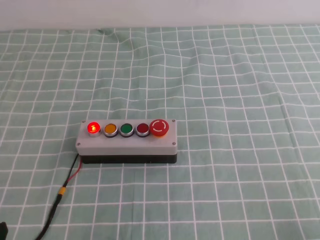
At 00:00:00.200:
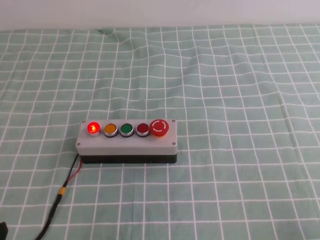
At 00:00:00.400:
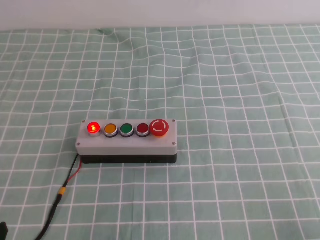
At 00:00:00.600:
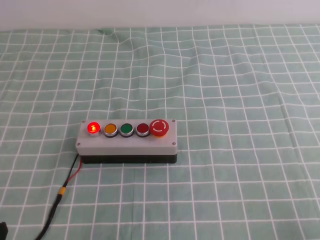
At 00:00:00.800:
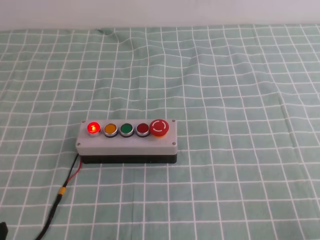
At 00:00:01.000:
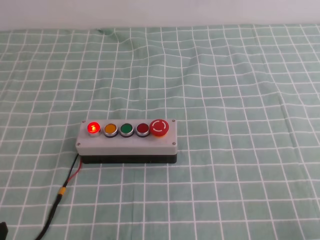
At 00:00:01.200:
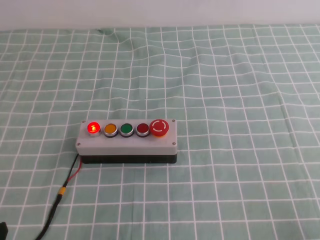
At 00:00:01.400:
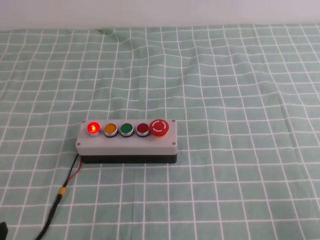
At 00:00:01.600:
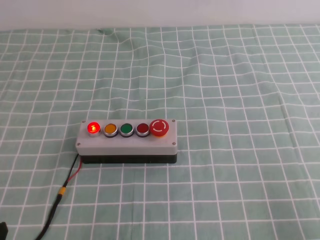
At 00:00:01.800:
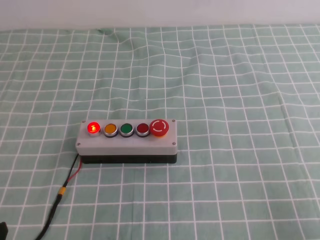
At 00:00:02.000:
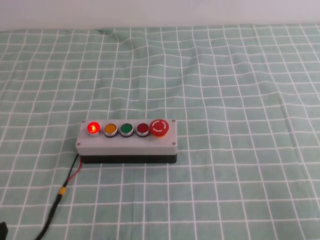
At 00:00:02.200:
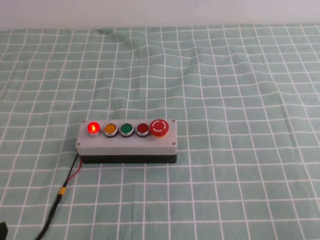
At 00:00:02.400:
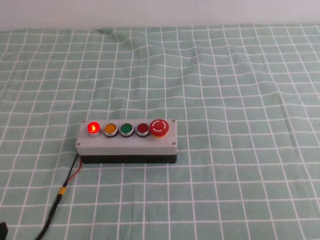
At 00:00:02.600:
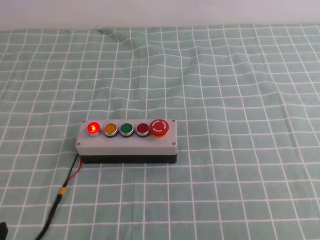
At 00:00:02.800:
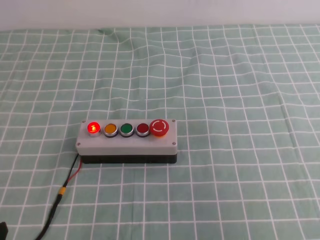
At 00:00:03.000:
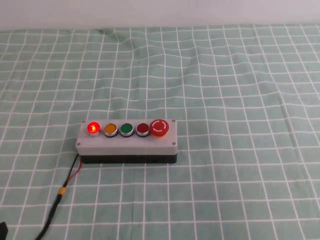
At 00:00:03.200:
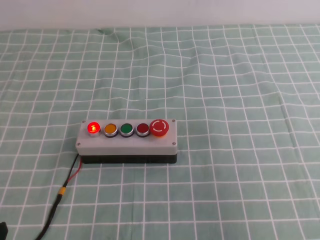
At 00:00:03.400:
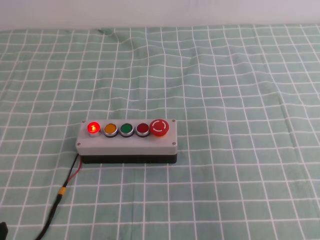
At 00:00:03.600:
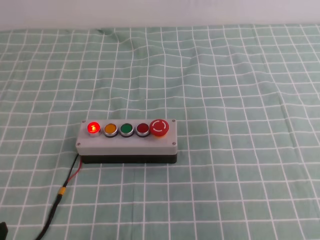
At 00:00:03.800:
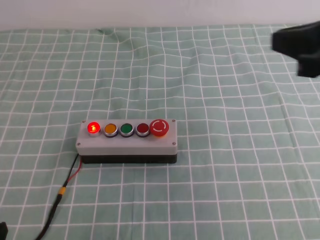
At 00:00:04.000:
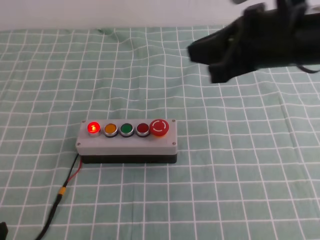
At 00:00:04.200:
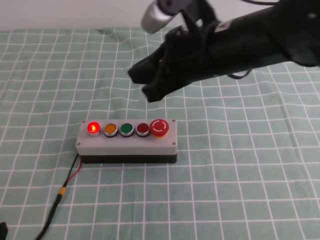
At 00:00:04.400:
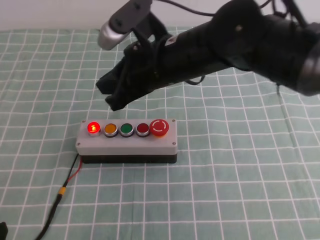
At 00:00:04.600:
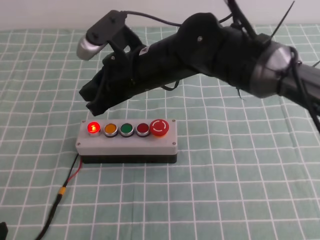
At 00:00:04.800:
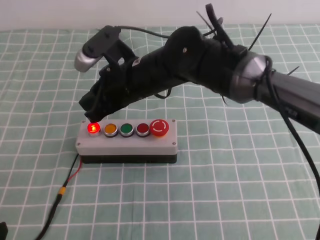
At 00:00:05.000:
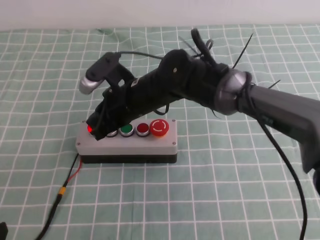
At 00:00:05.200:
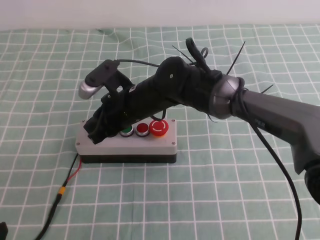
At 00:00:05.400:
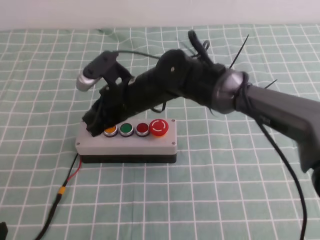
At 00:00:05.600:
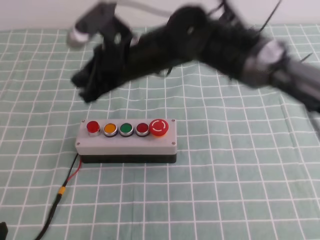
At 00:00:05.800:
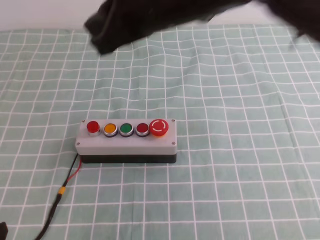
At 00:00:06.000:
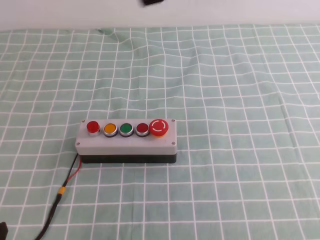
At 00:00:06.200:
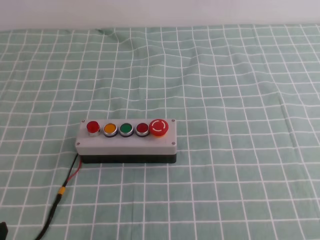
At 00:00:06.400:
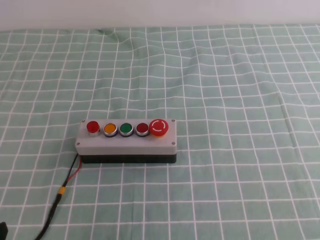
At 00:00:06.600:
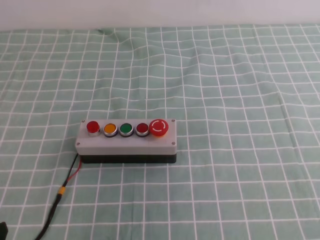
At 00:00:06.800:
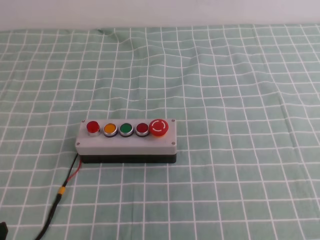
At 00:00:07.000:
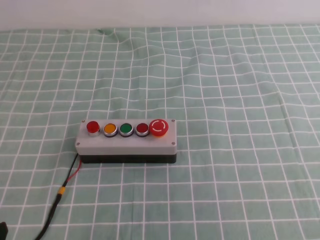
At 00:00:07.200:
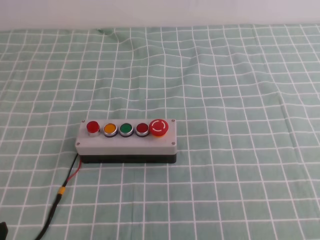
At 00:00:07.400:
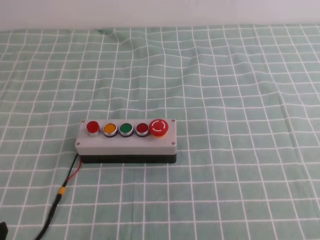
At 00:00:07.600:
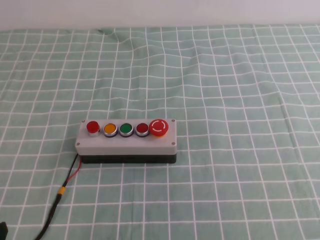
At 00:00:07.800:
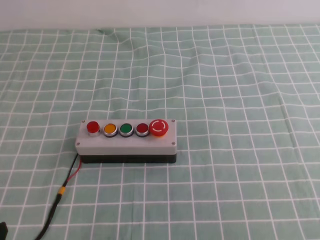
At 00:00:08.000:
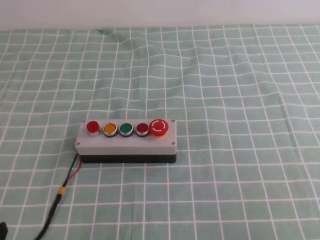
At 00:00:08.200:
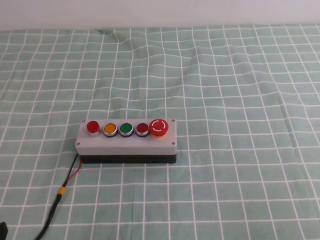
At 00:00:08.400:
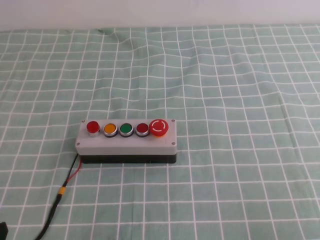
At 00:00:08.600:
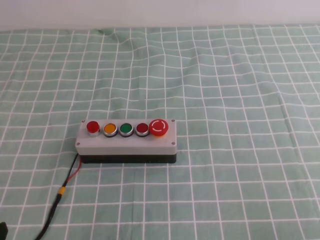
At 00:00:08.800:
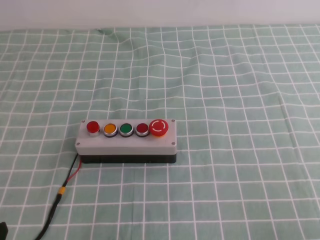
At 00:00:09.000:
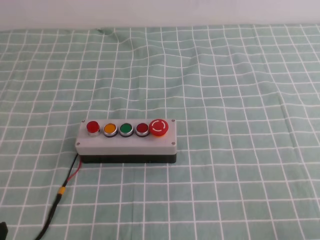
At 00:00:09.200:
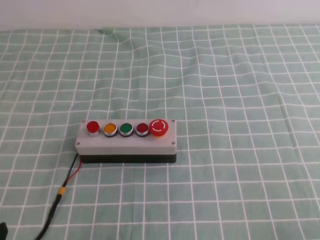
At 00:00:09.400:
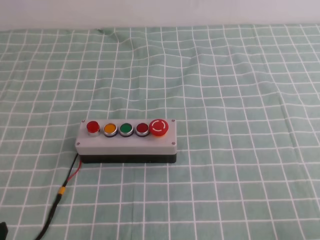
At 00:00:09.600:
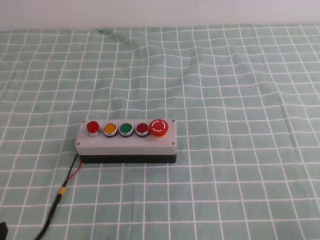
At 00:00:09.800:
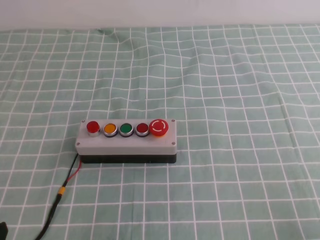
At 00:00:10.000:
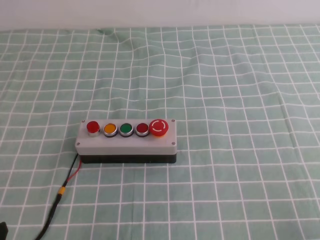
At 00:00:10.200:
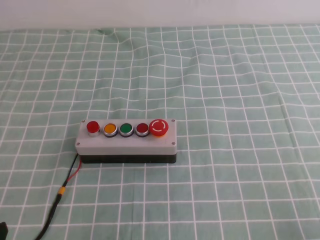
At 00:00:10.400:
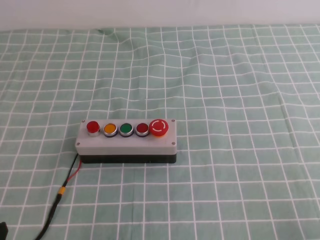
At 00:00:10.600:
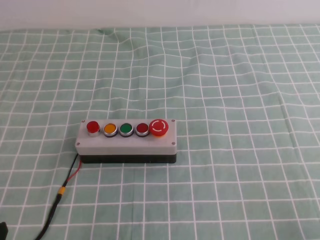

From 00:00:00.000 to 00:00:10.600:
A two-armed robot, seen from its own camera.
Task of the whole recording: press the button switch on the cyan tablecloth with the right gripper to turn off the button.
Step, from 00:00:00.000 to 00:00:10.600: Press the button to turn off.
From 00:00:01.600 to 00:00:03.000: The right gripper goes about 20 cm upward.
From 00:00:03.000 to 00:00:04.600: The right gripper heads to the left and forward, covering some 40 cm.
From 00:00:04.600 to 00:00:06.000: The right gripper travels upward, to the right and backward by roughly 20 cm.
From 00:00:06.000 to 00:00:07.600: The right gripper is displaced to the right, backward and downward by approximately 35 cm.

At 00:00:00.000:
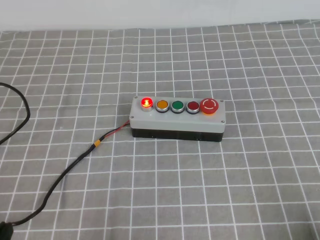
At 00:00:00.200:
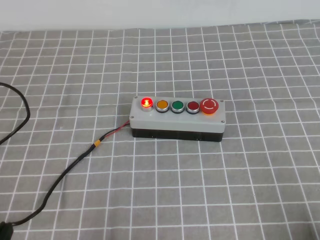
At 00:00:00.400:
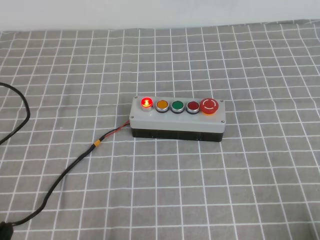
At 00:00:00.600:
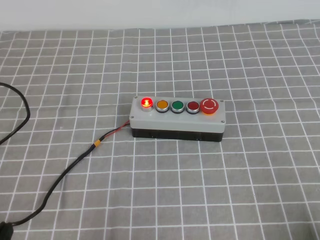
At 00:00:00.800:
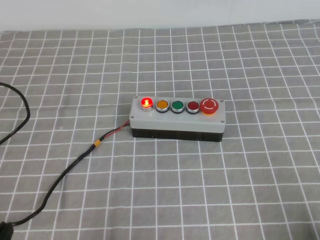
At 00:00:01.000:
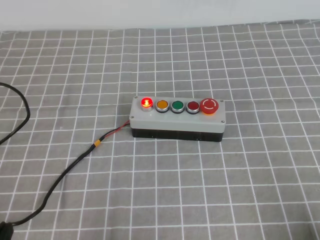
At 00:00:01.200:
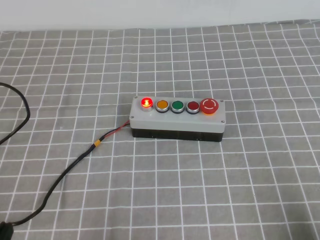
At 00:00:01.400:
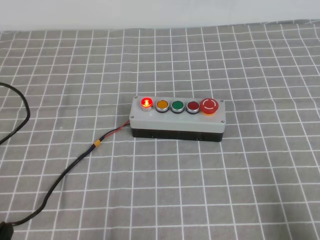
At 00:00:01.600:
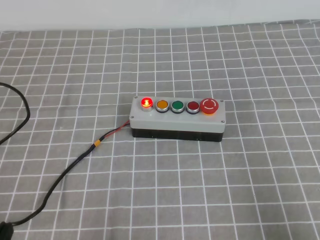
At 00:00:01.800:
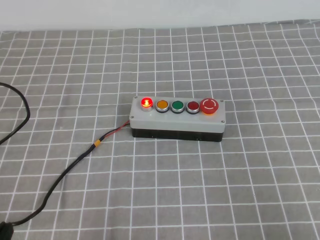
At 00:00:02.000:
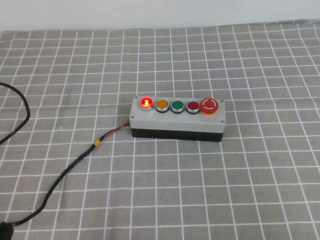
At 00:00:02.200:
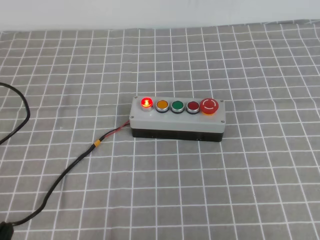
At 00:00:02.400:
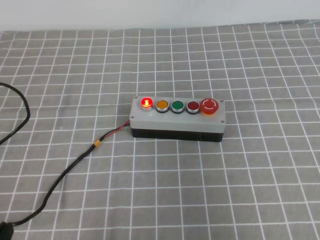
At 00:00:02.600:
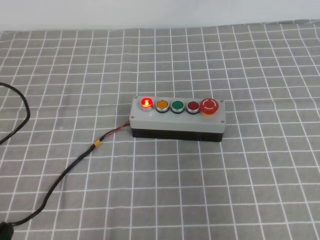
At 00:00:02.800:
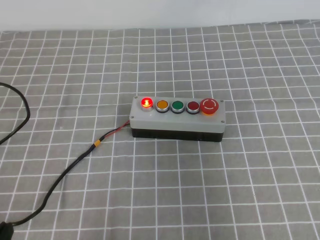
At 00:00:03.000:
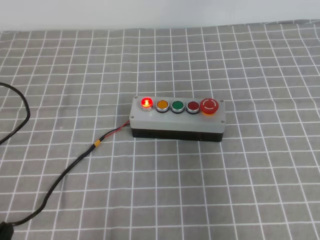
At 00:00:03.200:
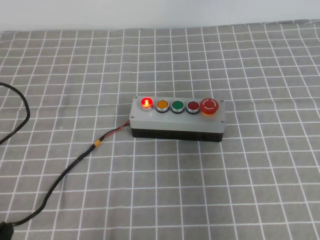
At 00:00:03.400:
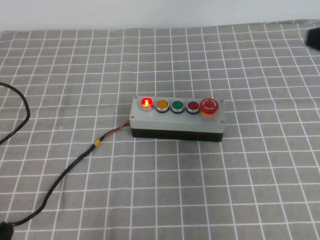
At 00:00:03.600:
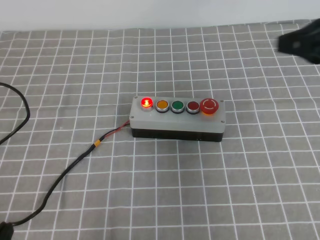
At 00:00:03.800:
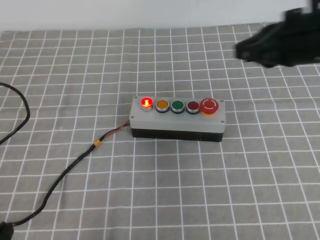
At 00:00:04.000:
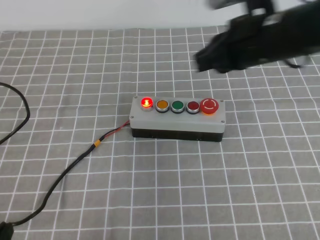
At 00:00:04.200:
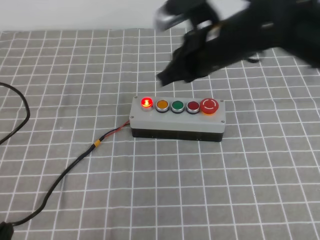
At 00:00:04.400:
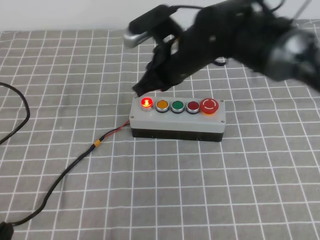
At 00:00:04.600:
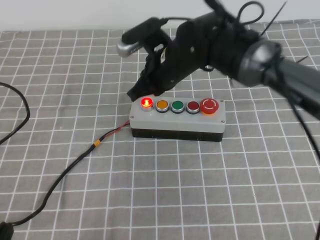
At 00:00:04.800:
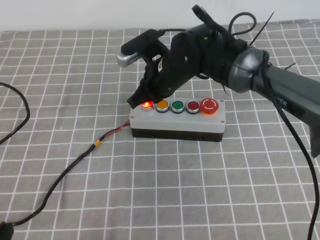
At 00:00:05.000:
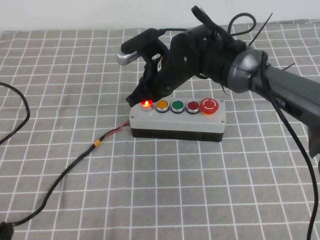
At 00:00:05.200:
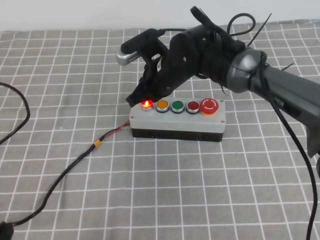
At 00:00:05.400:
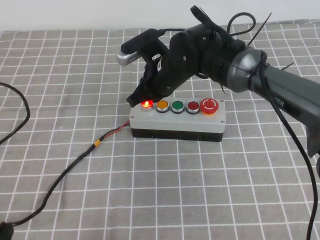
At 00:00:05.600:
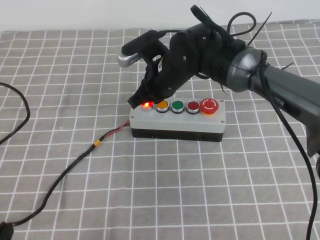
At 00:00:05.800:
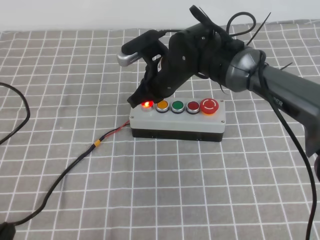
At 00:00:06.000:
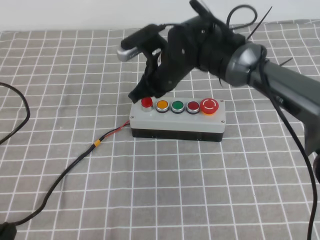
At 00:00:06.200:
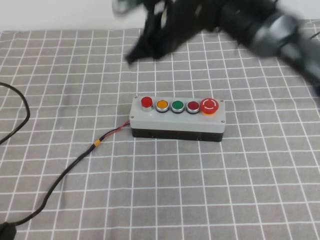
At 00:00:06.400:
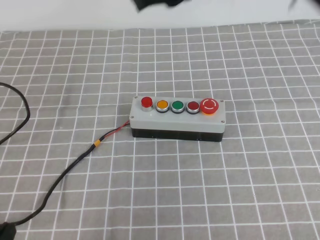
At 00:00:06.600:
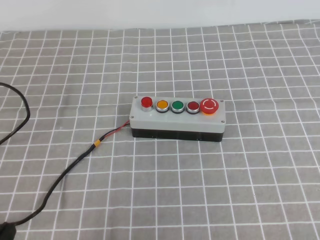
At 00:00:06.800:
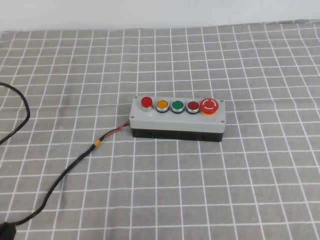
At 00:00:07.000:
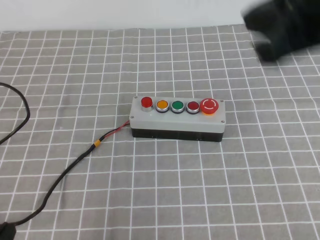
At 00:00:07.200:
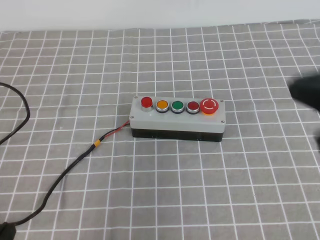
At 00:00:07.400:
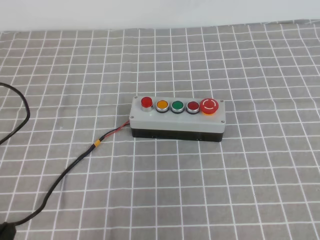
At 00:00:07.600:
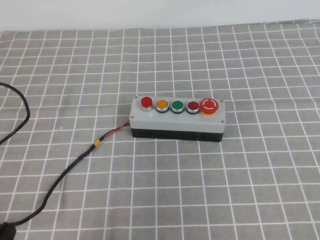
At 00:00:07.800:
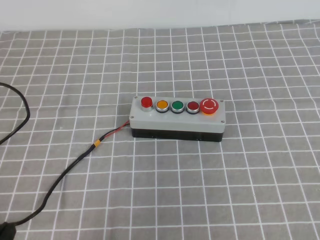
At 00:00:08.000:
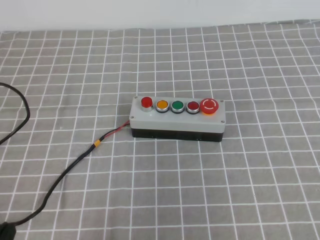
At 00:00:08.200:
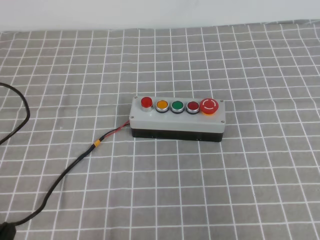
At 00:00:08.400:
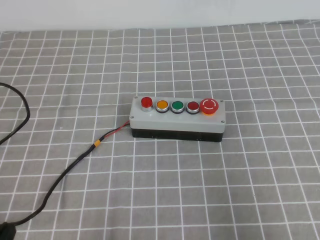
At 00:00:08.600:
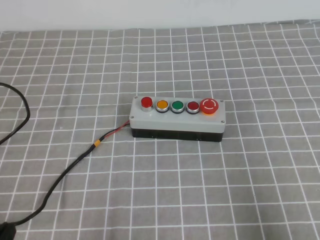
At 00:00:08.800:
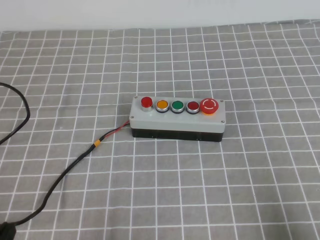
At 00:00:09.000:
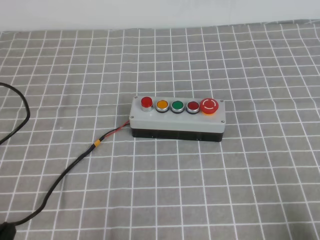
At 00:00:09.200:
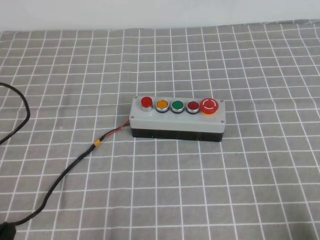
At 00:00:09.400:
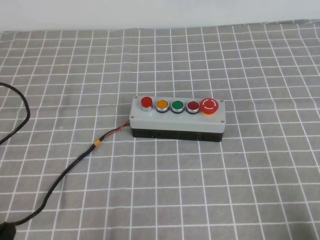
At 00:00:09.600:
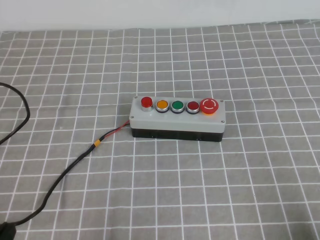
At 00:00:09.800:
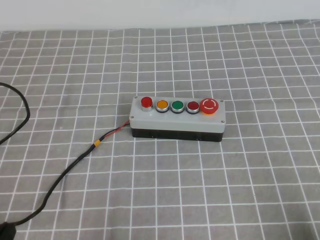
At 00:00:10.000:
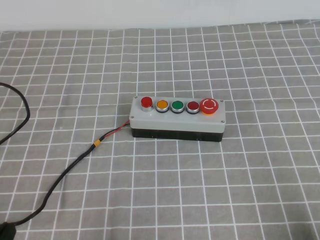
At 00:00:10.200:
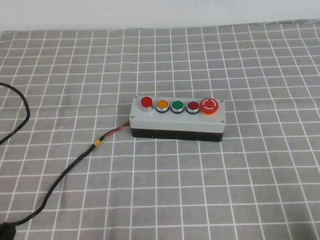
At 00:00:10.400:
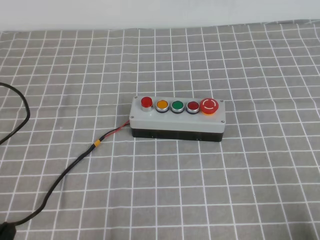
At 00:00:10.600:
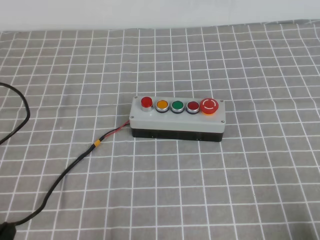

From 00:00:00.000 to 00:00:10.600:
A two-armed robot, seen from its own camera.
Task of the whole recording: press the button switch on the grey tablecloth with the right gripper to turn off the button.
Step, from 00:00:00.000 to 00:00:10.600: Press the button to turn off.
From 00:00:00.000 to 00:00:01.600: The right gripper is displaced upward by roughly 5 cm.
From 00:00:01.600 to 00:00:03.000: The right gripper is displaced upward and forward by some 20 cm.
From 00:00:03.000 to 00:00:04.600: The right gripper heads to the left, forward and downward, covering some 40 cm.
From 00:00:04.600 to 00:00:06.000: The grippers make only small movements.
From 00:00:06.000 to 00:00:07.600: The right gripper moves backward and to the right, roughly 40 cm.
From 00:00:07.600 to 00:00:09.000: The right gripper moves downward, roughly 20 cm.
